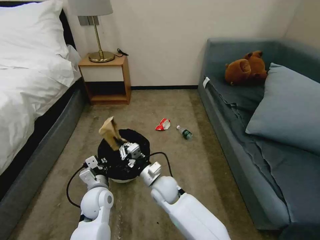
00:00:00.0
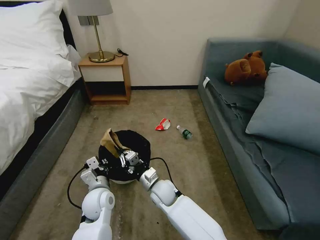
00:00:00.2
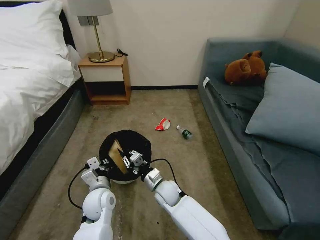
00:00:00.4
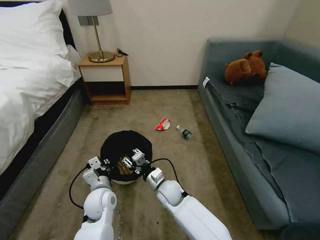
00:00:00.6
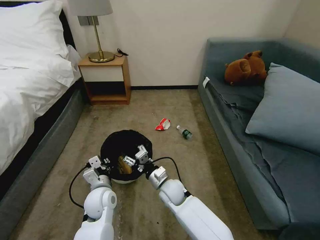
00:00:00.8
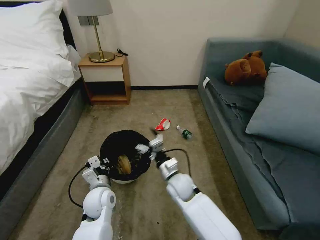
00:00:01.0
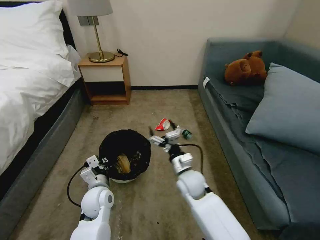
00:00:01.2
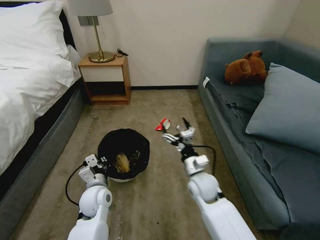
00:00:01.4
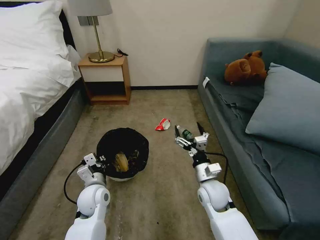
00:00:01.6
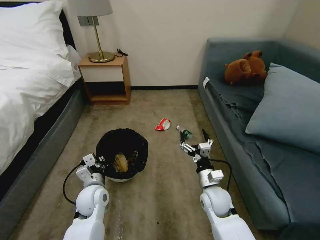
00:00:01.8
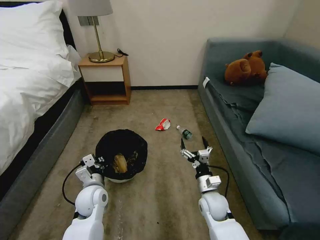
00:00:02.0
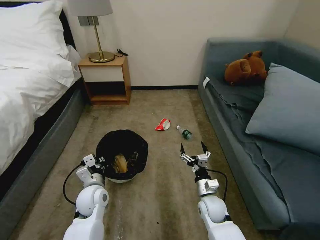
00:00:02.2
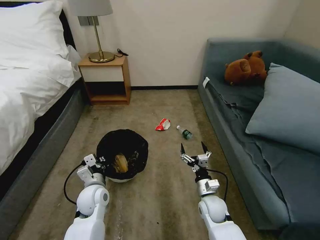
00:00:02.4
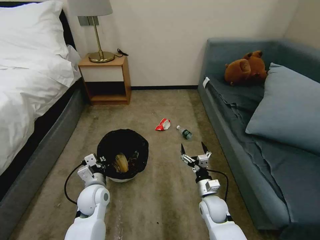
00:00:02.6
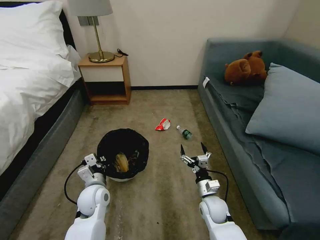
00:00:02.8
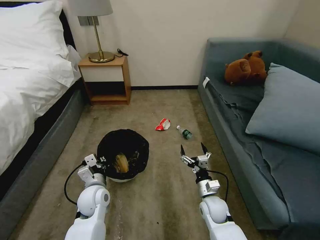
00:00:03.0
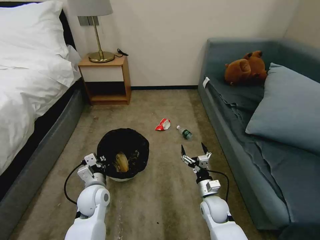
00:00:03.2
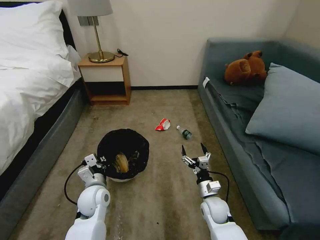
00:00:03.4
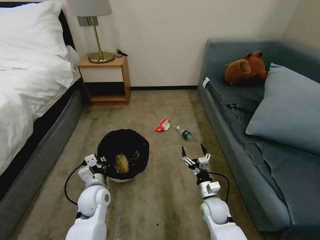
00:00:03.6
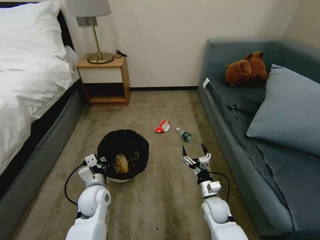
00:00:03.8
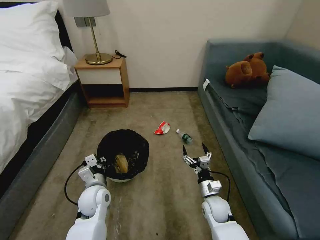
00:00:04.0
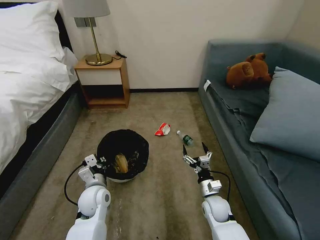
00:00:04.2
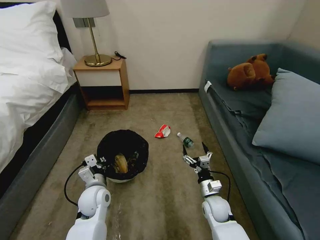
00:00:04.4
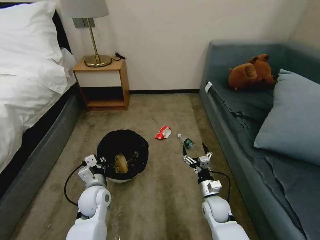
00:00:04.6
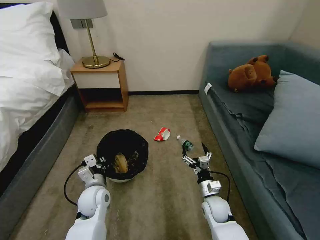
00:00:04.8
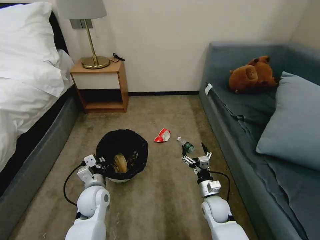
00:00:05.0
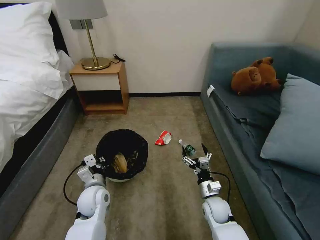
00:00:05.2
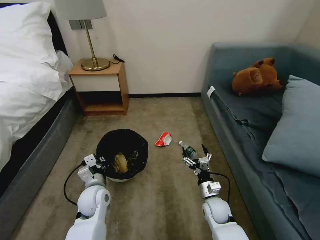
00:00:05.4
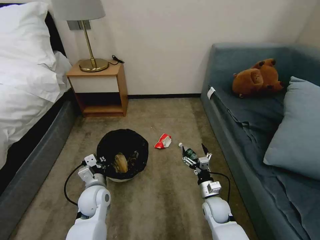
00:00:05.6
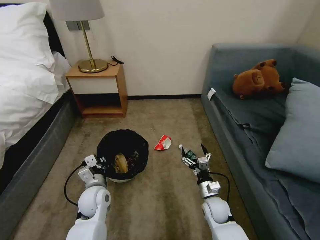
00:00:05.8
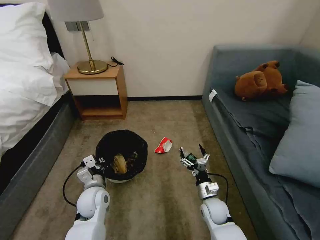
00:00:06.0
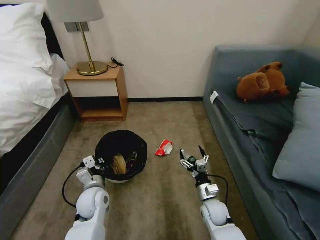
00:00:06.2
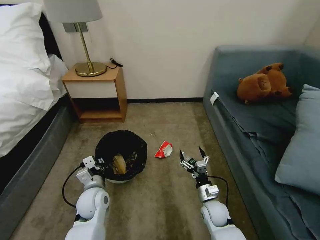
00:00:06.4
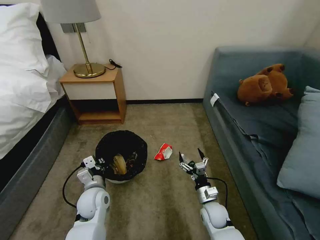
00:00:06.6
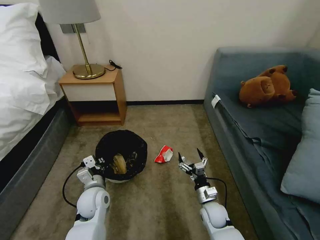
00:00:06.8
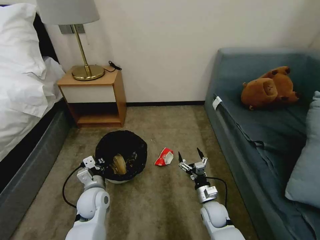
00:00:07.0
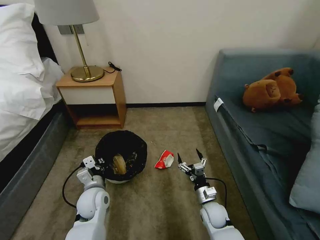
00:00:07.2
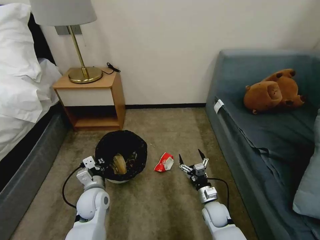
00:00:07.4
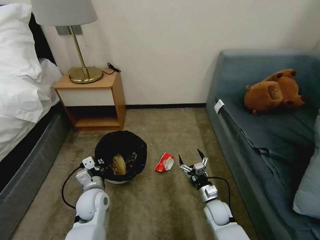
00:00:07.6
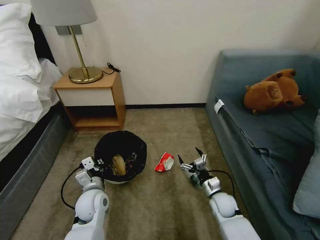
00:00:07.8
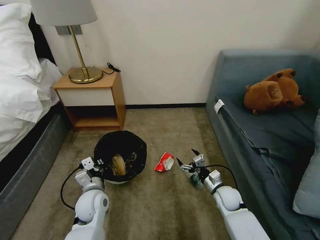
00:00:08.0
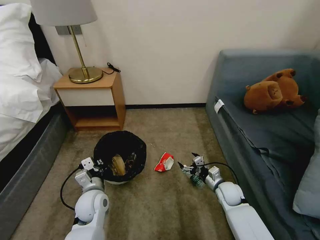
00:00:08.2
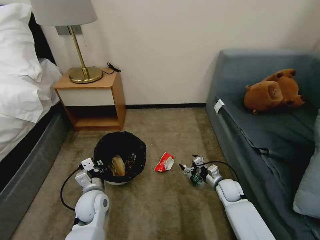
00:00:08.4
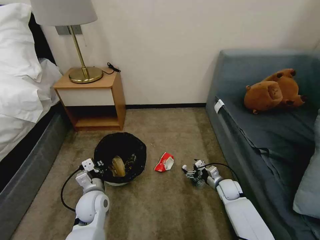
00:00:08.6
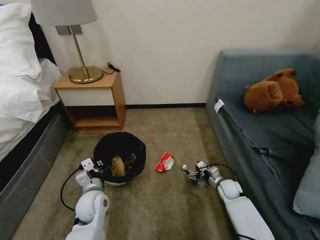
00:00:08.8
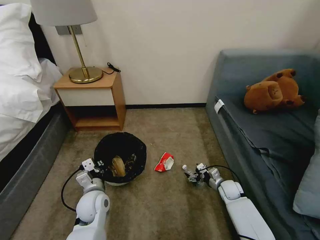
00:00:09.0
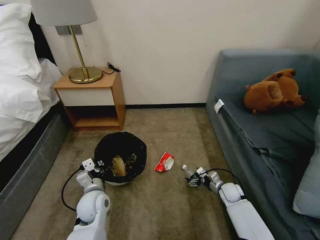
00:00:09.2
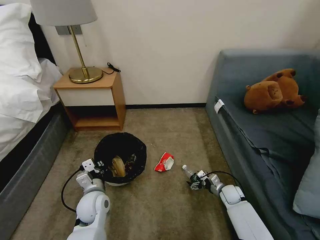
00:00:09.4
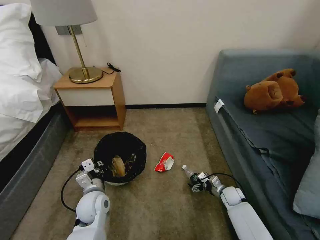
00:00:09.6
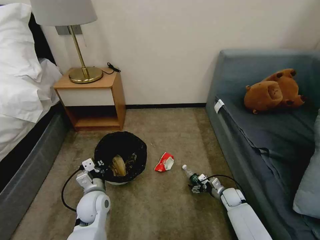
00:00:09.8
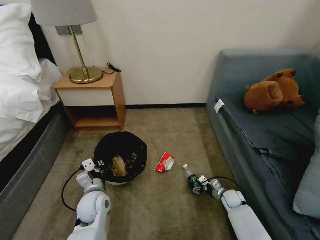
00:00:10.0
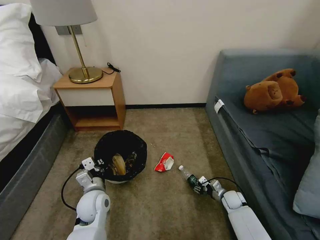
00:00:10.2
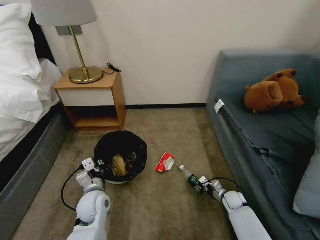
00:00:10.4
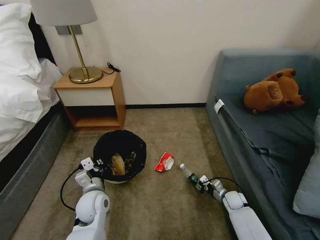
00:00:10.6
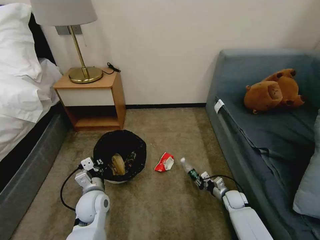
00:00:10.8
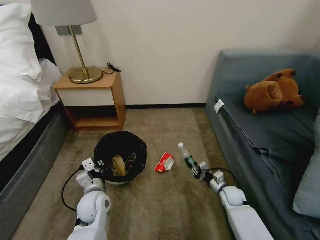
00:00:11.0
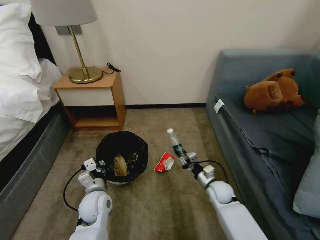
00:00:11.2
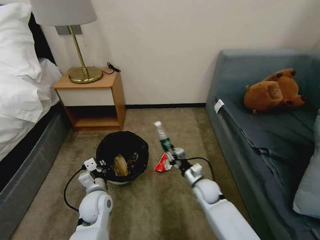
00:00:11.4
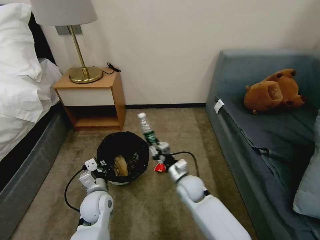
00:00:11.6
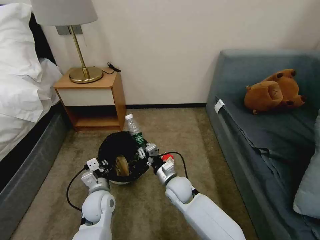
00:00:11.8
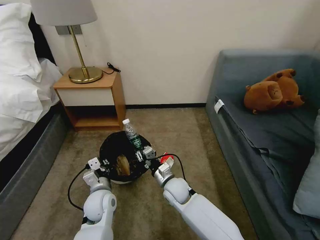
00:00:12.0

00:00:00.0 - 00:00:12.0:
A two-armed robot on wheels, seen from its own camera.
Task of the whole recording: Pick up the trash bin, then pick up the garbage on the floor and place it into the trash bin.
00:00:00.0 - 00:00:01.6: The right gripper travels to the right by about 15 cm, and opens up.
00:00:01.6 - 00:00:03.0: The right gripper travels downward by roughly 10 cm.
00:00:03.0 - 00:00:04.4: The two grippers keep their place.
00:00:07.6 - 00:00:09.0: The right gripper moves to the right and forward, approximately 15 cm.
00:00:09.0 - 00:00:10.4: The right gripper ends up some 5 cm from where it was, and closes.
00:00:10.4 - 00:00:12.0: The right gripper travels to the left and upward by approximately 30 cm.

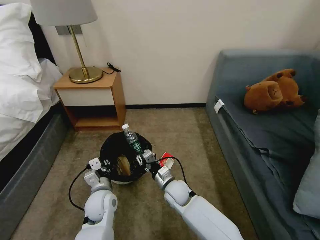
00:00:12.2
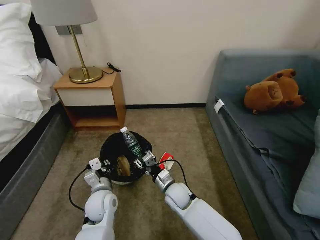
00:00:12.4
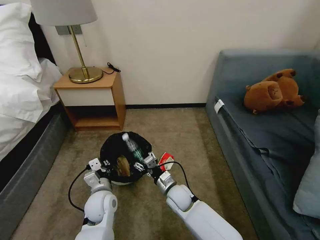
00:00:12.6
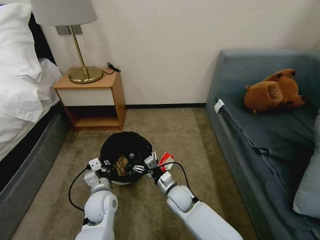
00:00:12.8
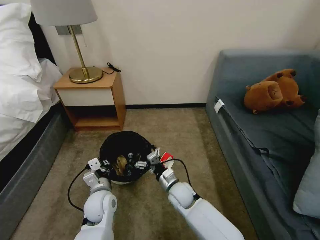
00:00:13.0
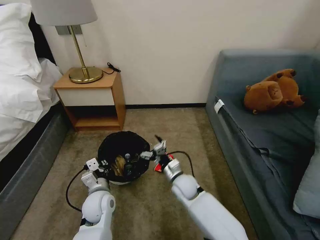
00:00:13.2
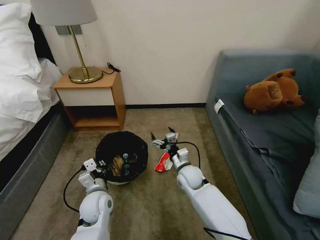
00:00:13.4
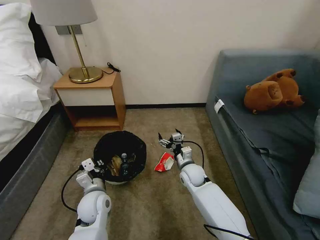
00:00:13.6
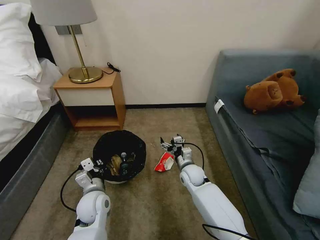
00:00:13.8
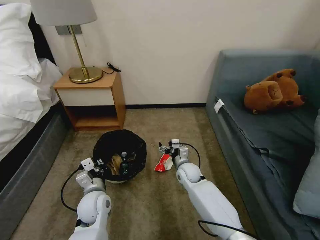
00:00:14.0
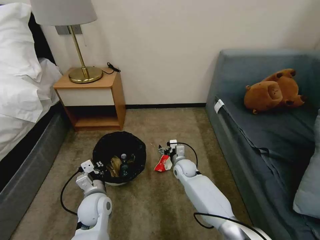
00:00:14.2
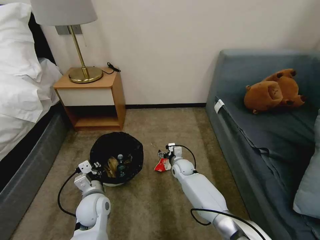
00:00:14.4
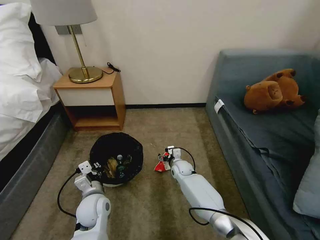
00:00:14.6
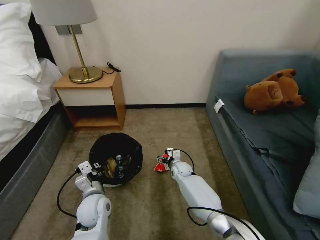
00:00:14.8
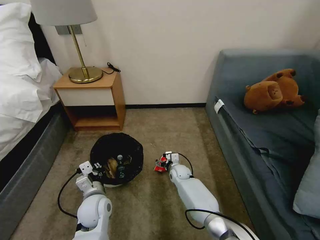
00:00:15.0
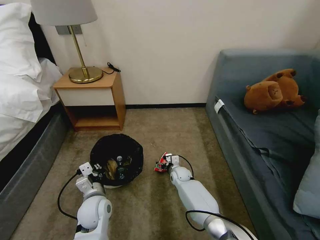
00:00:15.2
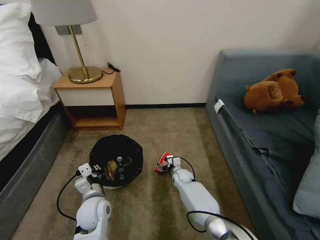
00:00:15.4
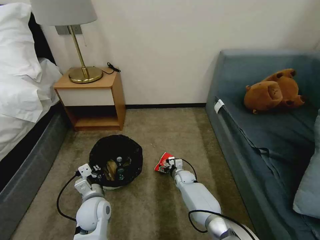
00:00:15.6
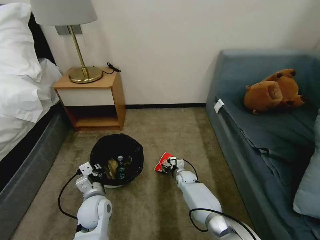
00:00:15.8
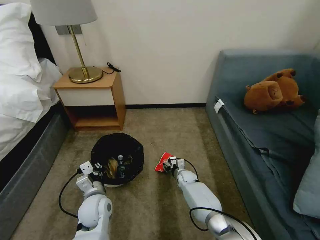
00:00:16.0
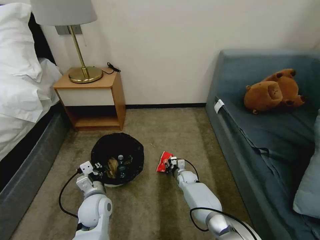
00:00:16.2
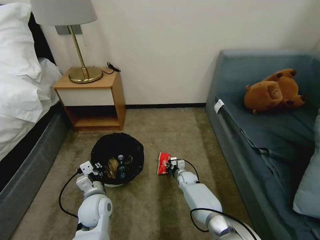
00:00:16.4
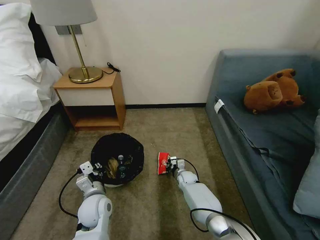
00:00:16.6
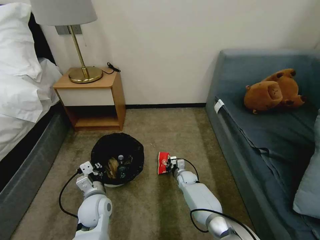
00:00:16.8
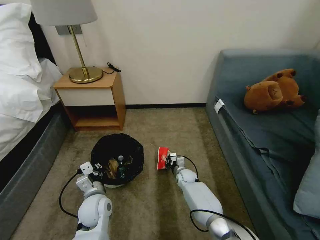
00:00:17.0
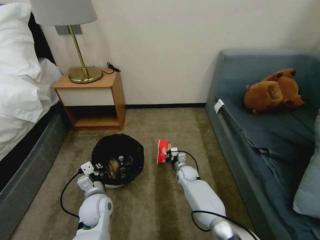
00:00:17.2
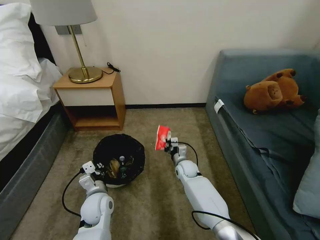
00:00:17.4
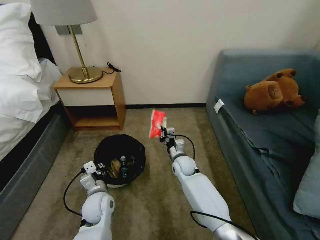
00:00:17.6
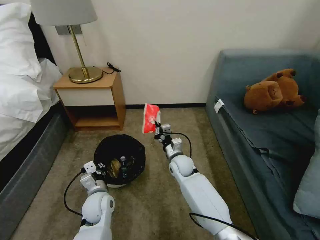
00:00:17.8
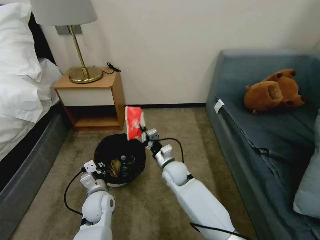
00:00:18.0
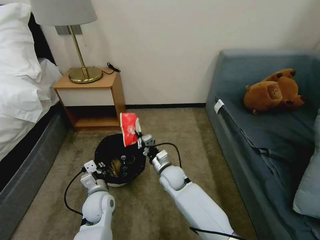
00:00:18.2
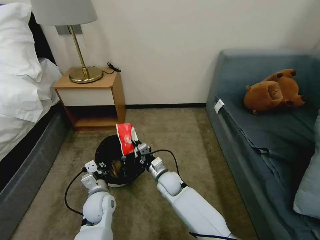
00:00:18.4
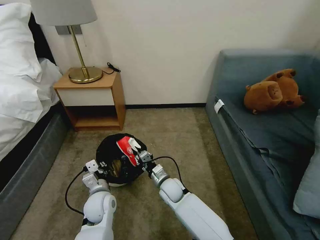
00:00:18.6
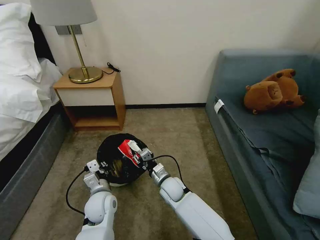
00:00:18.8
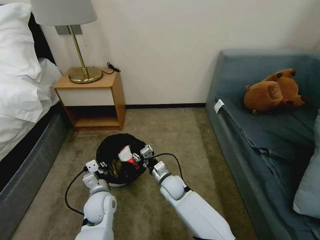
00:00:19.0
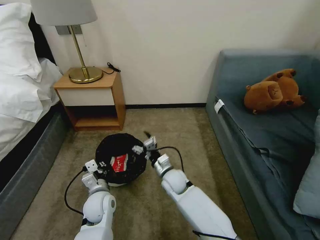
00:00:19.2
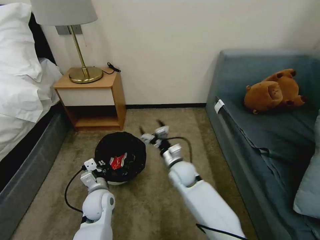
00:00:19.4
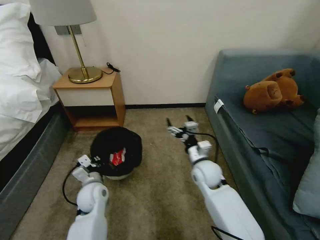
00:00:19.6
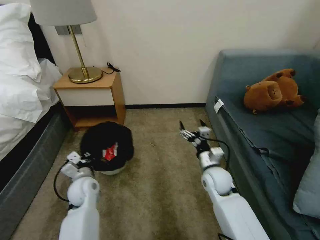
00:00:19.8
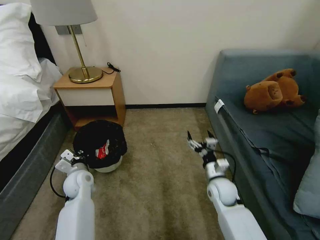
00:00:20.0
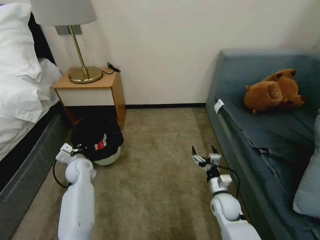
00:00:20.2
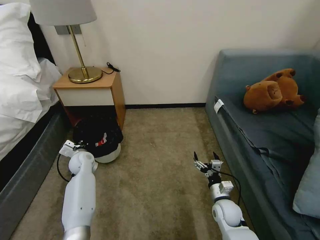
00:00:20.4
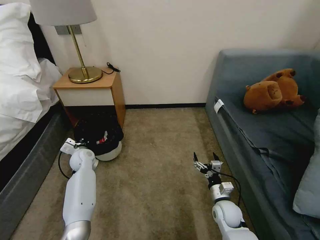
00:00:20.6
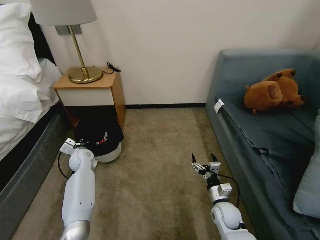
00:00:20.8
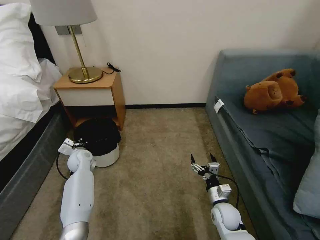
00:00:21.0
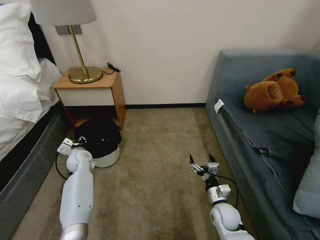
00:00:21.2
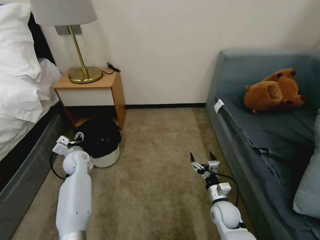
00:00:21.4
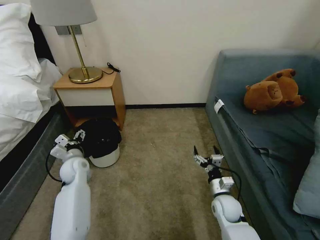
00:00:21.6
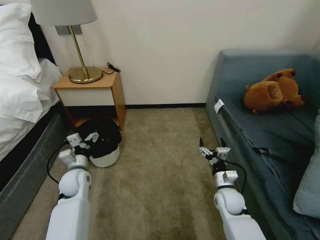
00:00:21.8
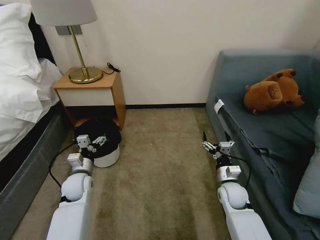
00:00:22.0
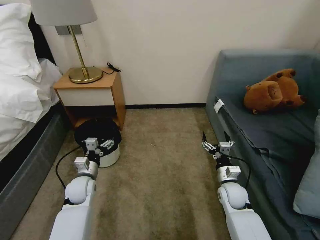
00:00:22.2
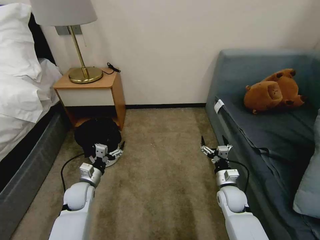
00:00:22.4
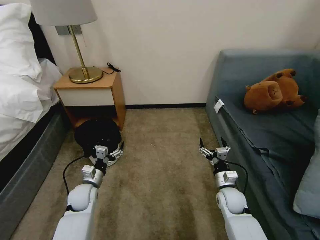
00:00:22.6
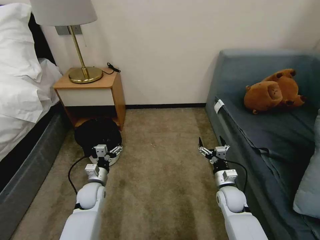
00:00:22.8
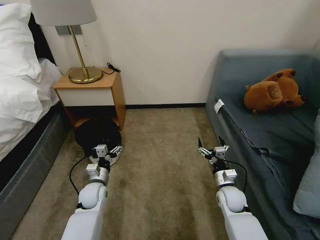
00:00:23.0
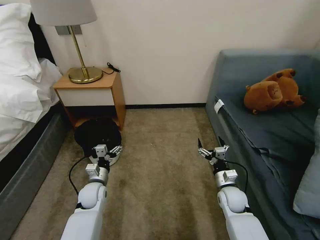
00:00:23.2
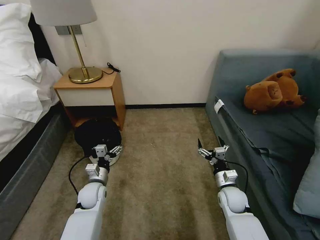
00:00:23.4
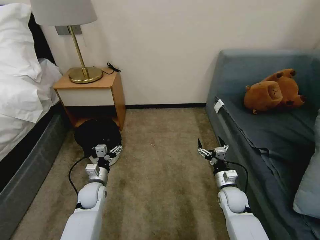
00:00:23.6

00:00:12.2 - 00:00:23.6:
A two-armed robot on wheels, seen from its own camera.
Task of the whole recording: Pick up the trash bin, then pick up the garbage on the floor and place it into the trash bin.
00:00:12.2 - 00:00:13.6: The right gripper goes about 10 cm to the right and forward, and opens its fingers.
00:00:13.6 - 00:00:15.0: The right gripper heads downward and forward, covering about 10 cm.
00:00:15.0 - 00:00:16.4: The right gripper goes about 5 cm downward, and closes.
00:00:16.4 - 00:00:17.8: The right gripper moves upward, about 15 cm.
00:00:17.8 - 00:00:19.4: The right gripper moves some 5 cm downward and comes back, and opens its fingers.
00:00:19.4 - 00:00:20.8: The left gripper moves forward and to the left, about 20 cm. The right gripper travels to the right, backward and downward by approximately 25 cm.
00:00:20.8 - 00:00:22.2: The left gripper moves backward, some 10 cm, and opens up. The right gripper shifts some 10 cm forward and upward.
00:00:22.2 - 00:00:23.6: The grippers make only small movements.
